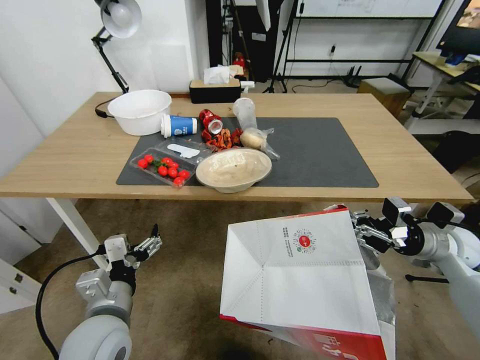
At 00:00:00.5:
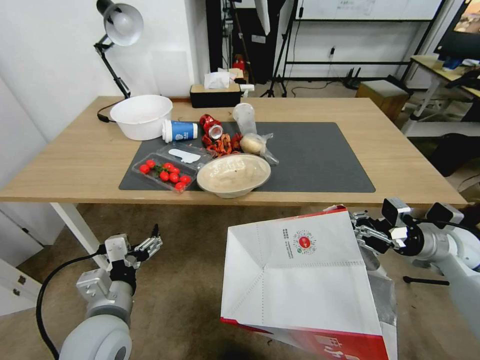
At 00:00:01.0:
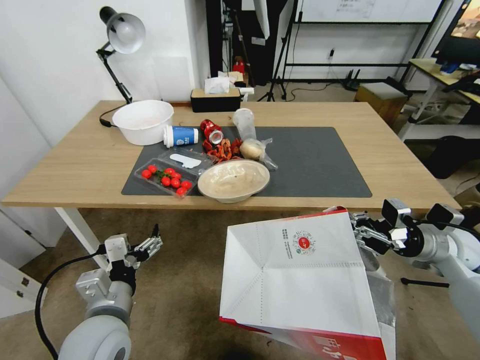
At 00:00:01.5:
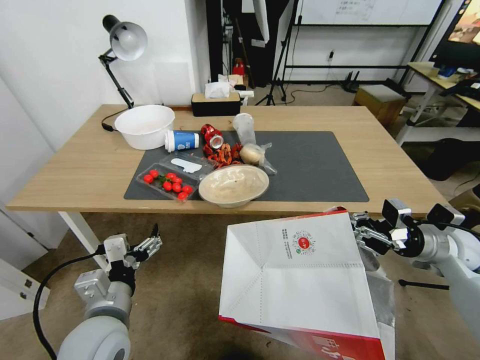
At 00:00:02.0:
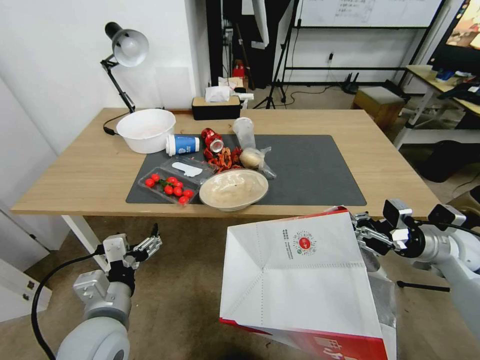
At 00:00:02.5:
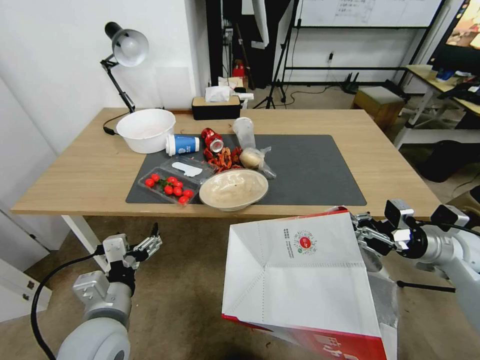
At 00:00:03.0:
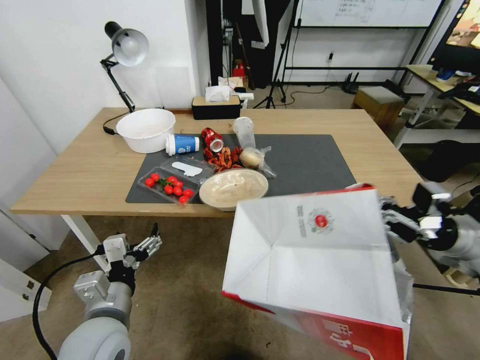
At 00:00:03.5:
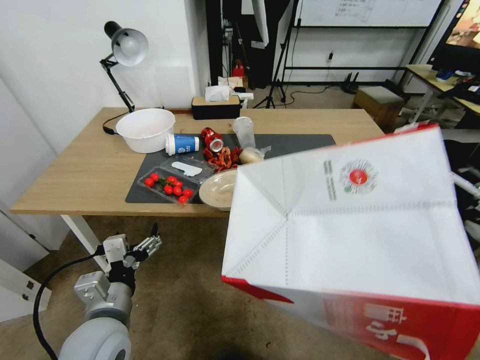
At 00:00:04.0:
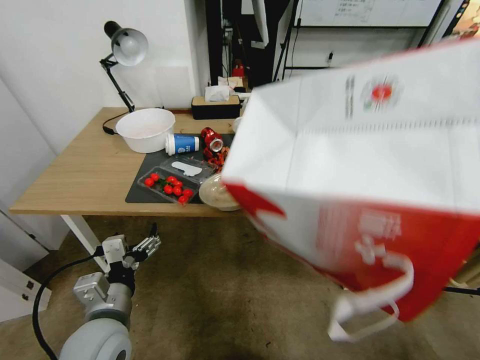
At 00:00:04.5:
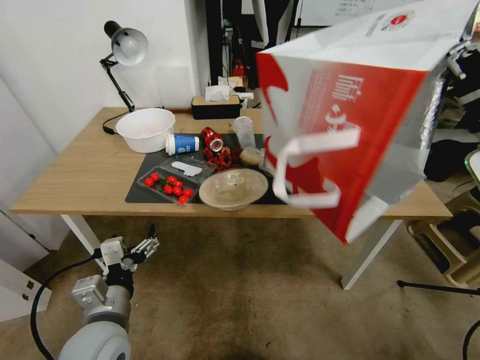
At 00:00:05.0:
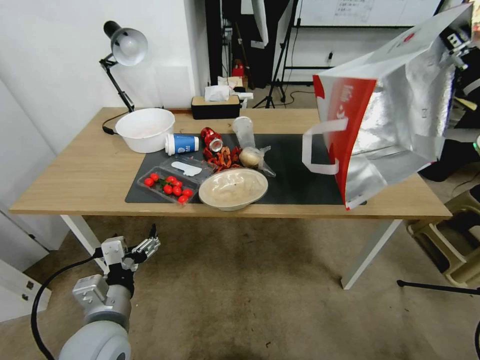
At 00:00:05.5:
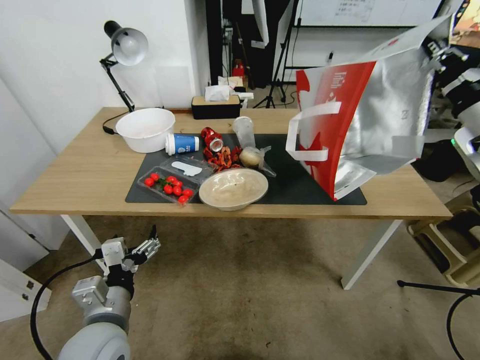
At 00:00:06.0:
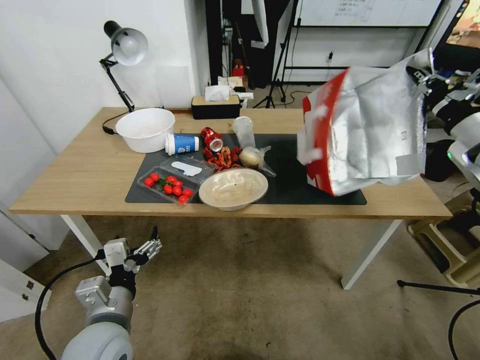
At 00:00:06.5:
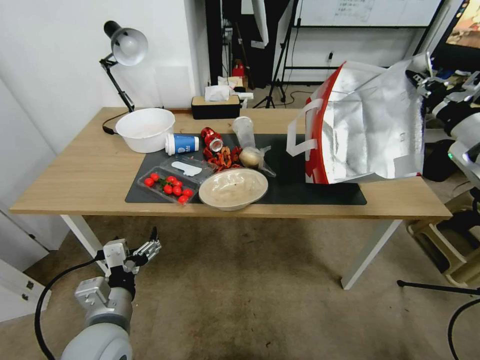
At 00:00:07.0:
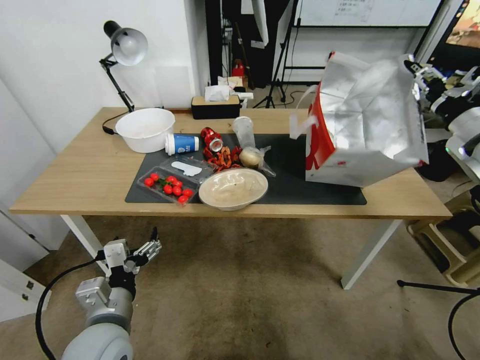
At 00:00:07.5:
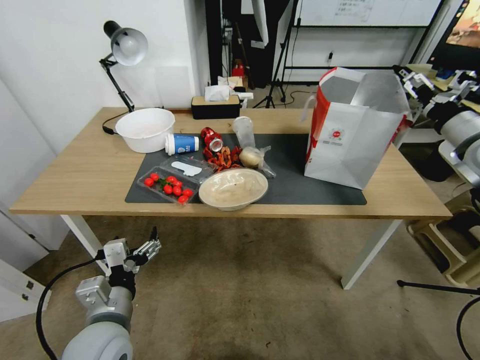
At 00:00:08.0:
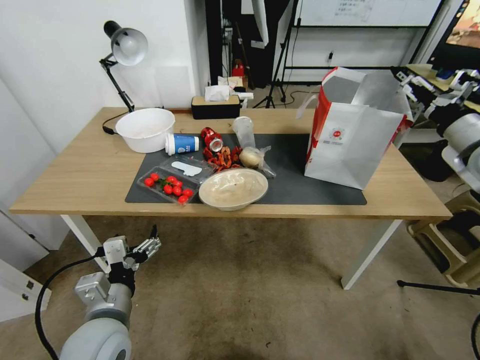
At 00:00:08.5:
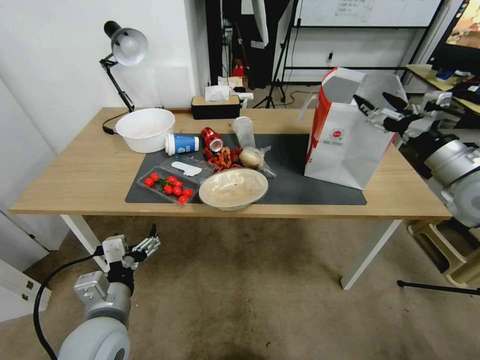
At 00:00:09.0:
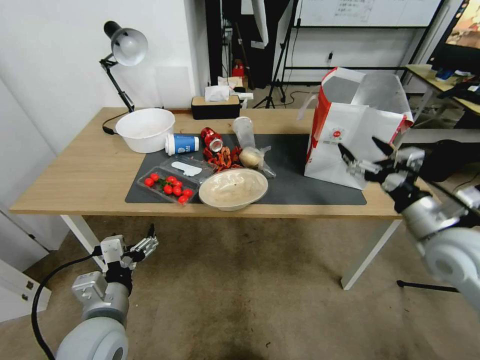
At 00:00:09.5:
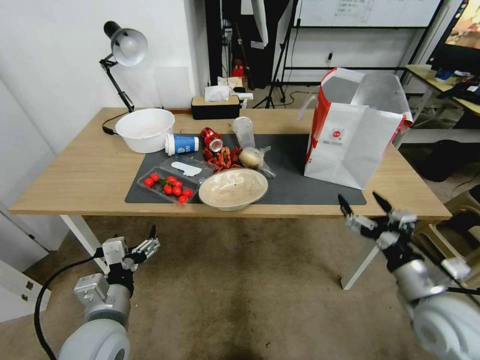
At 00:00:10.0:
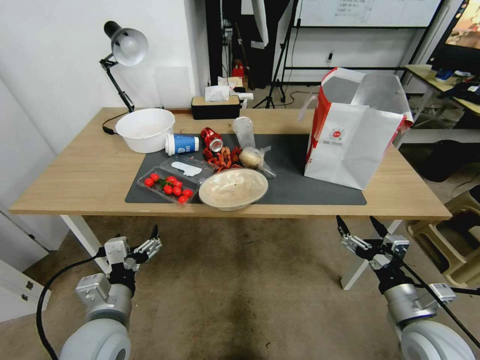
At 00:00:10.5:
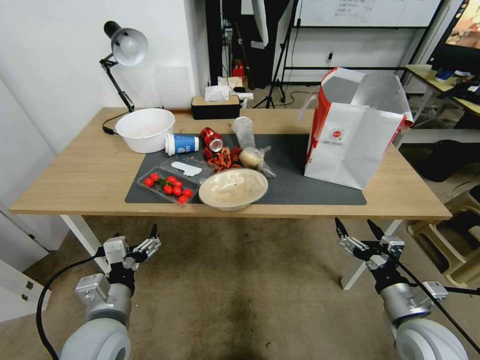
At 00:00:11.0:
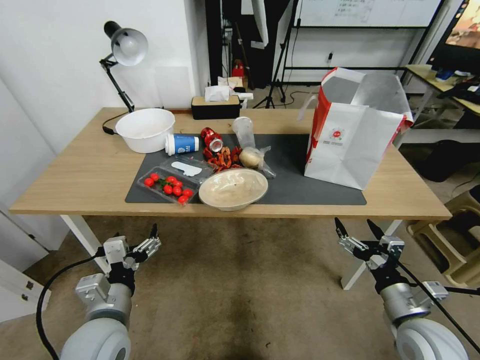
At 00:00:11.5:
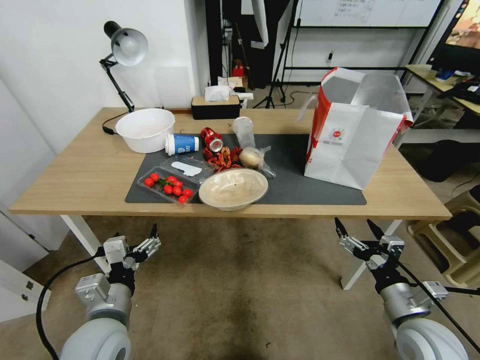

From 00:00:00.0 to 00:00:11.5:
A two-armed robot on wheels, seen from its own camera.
Task of the whole recording: Pick up the food delivery bag from the floor and place it on the table.
From 00:00:02.0 to 00:00:04.0: The right gripper goes roughly 15 cm upward.
From 00:00:04.0 to 00:00:06.0: The right gripper is displaced forward by some 10 cm.
From 00:00:06.0 to 00:00:07.5: The right gripper opens up.
From 00:00:07.5 to 00:00:09.5: The right gripper travels backward, downward and to the left by approximately 30 cm.
From 00:00:09.5 to 00:00:11.5: The right gripper travels downward by about 5 cm.
